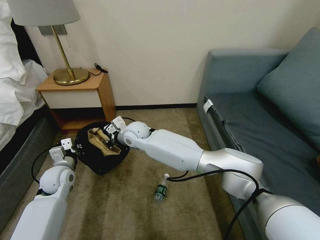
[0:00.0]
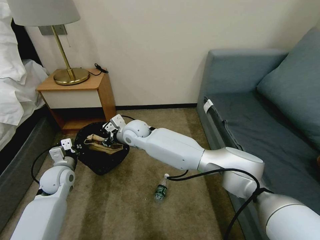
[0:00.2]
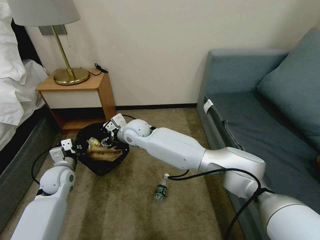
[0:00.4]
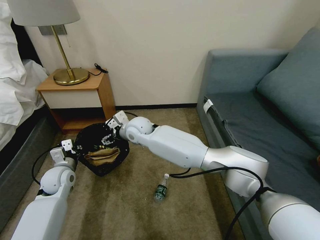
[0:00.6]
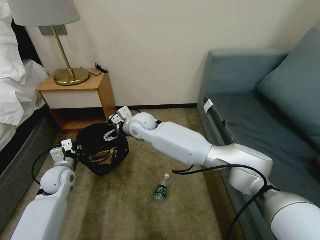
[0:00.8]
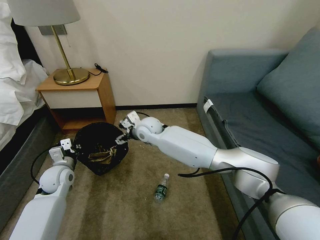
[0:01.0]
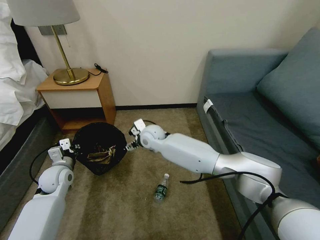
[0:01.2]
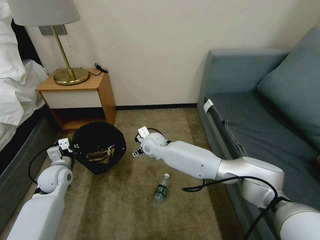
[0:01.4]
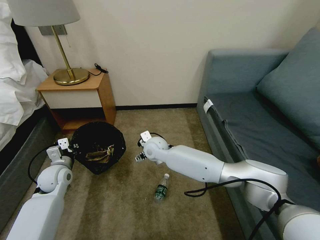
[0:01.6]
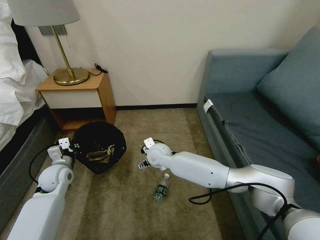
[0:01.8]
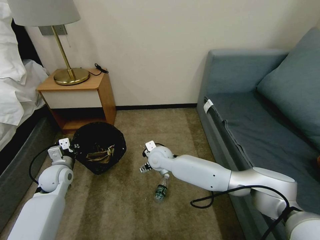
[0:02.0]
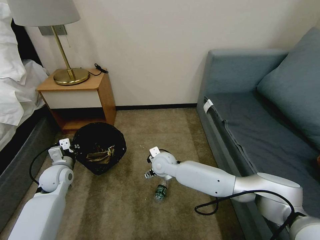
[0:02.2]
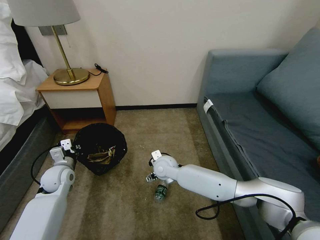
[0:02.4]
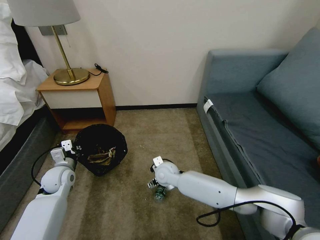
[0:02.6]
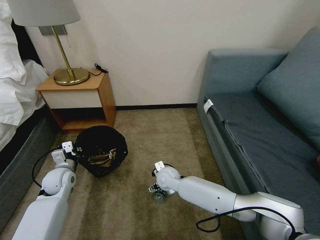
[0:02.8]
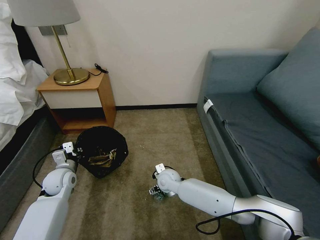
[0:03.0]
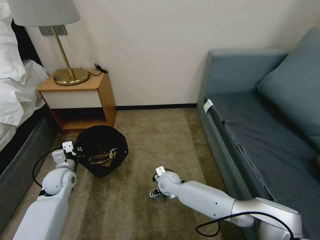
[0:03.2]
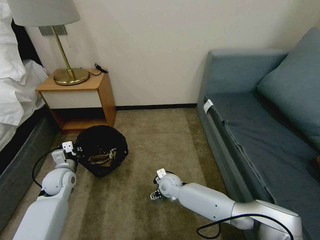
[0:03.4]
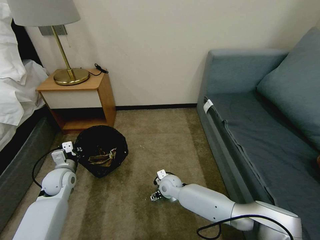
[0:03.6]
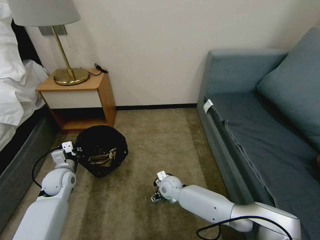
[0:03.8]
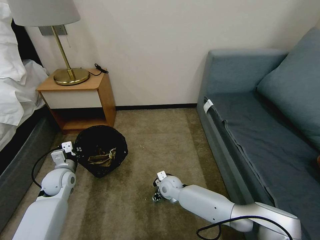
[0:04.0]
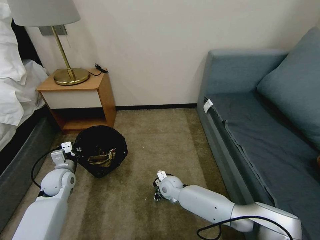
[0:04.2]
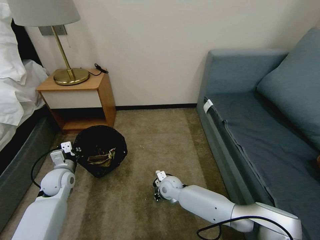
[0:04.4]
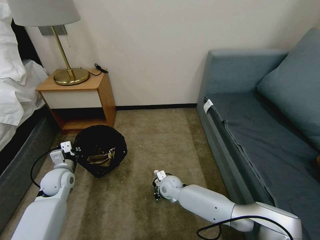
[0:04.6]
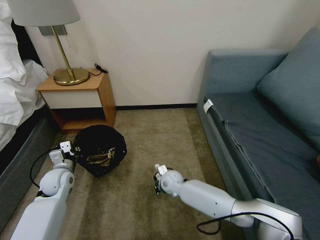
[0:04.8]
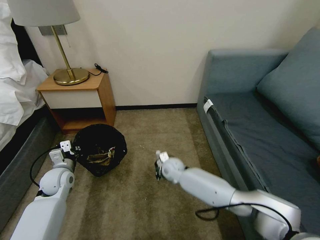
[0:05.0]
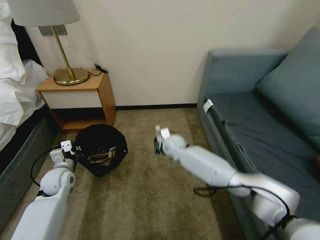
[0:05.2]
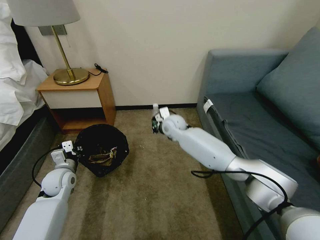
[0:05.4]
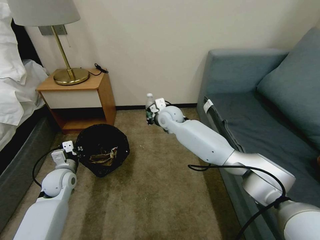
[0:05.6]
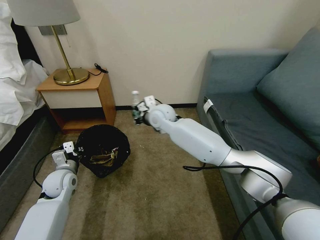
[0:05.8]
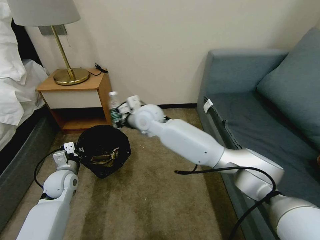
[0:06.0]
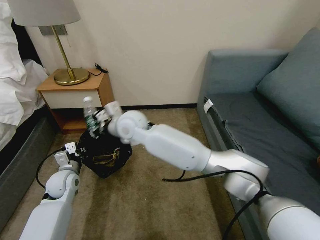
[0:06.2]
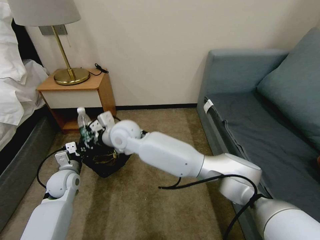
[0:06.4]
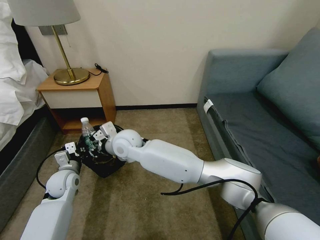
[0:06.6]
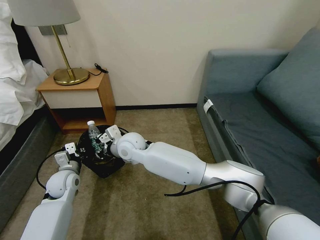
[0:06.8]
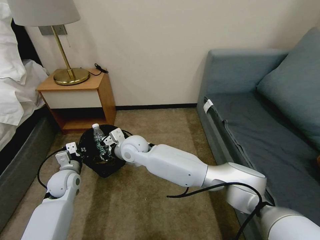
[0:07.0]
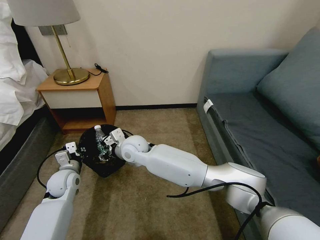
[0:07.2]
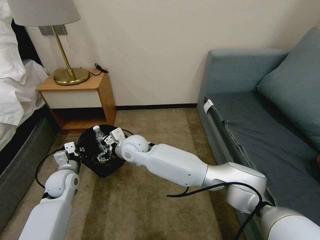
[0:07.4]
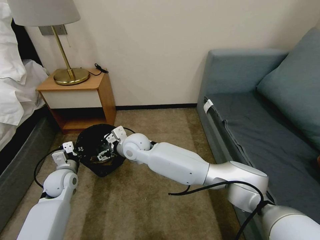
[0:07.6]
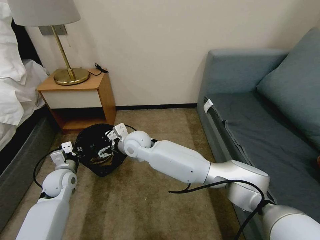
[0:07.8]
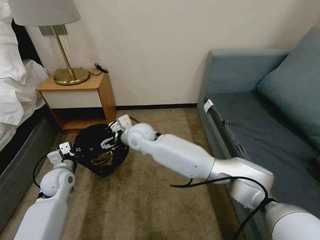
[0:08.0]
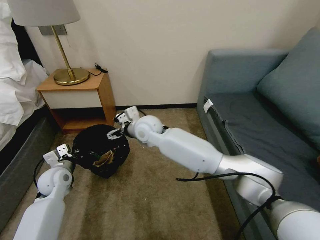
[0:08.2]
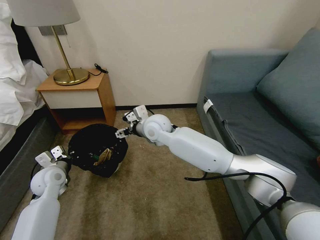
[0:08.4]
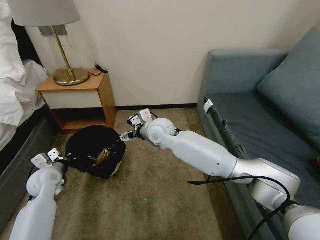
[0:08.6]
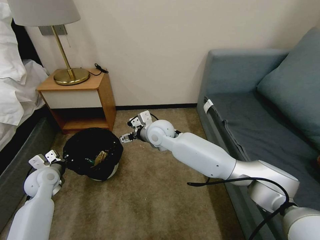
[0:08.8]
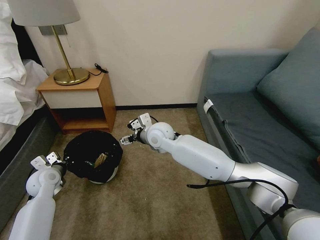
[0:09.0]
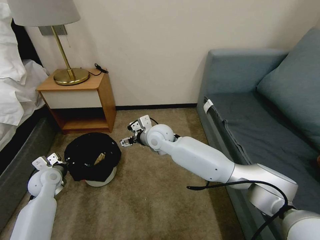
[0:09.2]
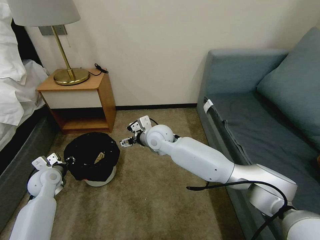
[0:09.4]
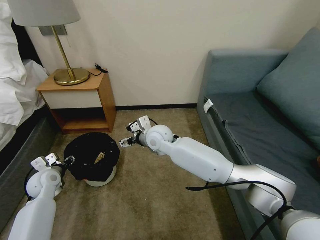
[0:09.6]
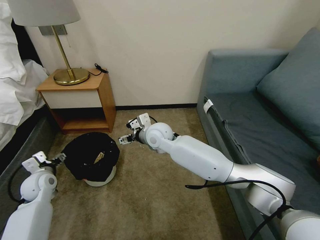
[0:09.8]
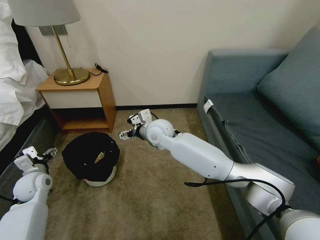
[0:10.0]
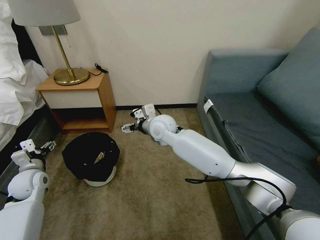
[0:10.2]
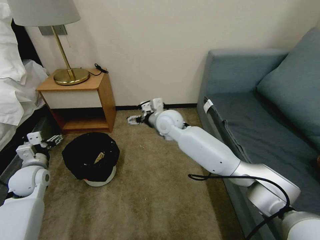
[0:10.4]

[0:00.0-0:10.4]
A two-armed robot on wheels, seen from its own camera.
Task of the whole recording: Pick up the trash bin, then pick up the garbage on the floor and place it into the trash bin.
0:00.0 to 0:01.4: The right gripper goes approximately 5 cm to the right, and opens its fingers.
0:01.4 to 0:03.0: The right gripper shifts some 15 cm downward, backward and to the right.
0:03.0 to 0:04.4: The right gripper closes up.
0:04.4 to 0:06.0: The right gripper moves upward, some 30 cm.
0:06.0 to 0:07.4: The right gripper is displaced downward by about 10 cm, and opens up.
0:07.4 to 0:09.0: The right gripper travels to the right by some 10 cm. The left gripper is displaced to the left by about 5 cm.
0:09.0 to 0:10.4: The right gripper moves approximately 5 cm; the left gripper moves approximately 5 cm, and opens its fingers.

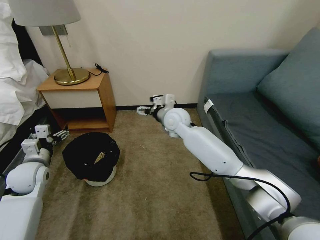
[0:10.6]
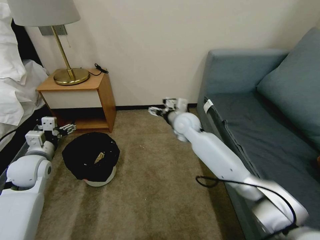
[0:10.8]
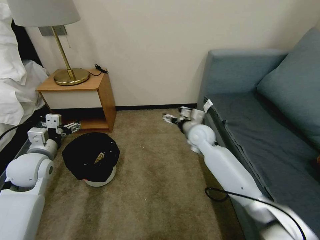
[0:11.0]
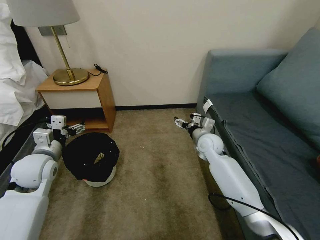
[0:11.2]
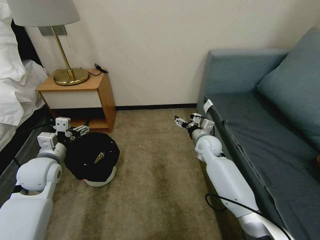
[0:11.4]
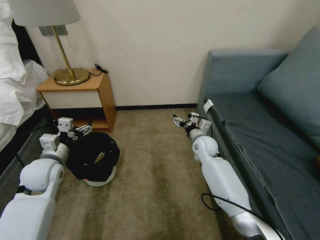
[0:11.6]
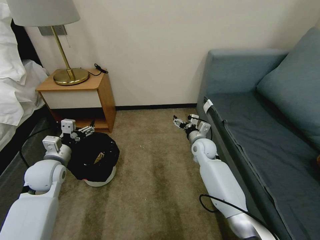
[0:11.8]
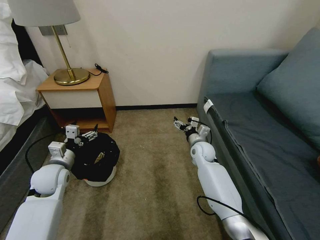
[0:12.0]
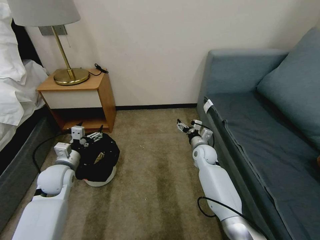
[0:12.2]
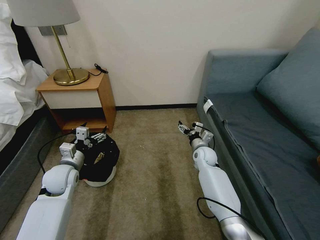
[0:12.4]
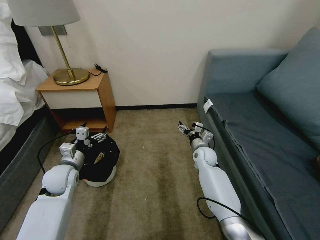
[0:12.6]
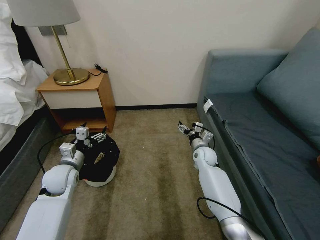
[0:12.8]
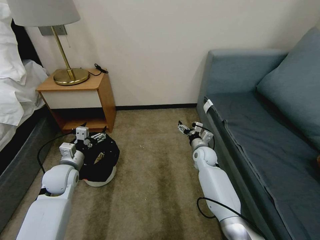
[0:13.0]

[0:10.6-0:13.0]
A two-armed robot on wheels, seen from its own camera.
Task of the whole recording: Pick up the trash bin, then pick up the garbage on the floor and place it into the trash bin.
0:10.6 to 0:11.8: The right gripper is displaced downward and to the right by approximately 20 cm, while the left gripper moves to the right, about 5 cm.
0:11.8 to 0:13.0: The right gripper changes place by approximately 5 cm.

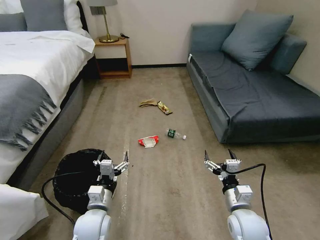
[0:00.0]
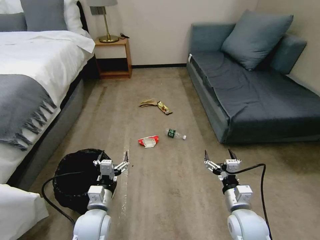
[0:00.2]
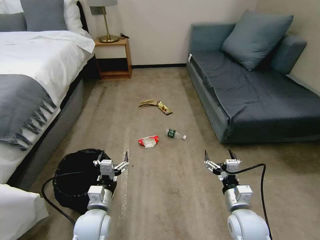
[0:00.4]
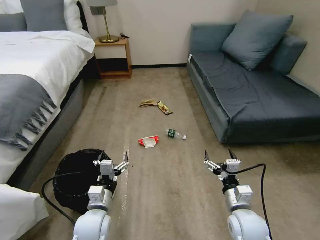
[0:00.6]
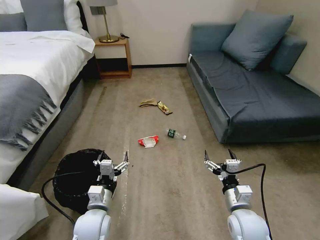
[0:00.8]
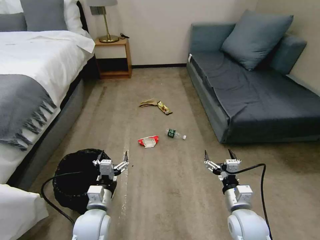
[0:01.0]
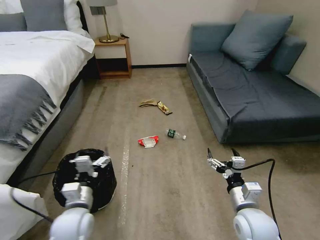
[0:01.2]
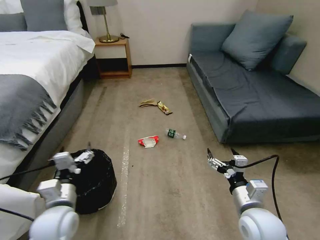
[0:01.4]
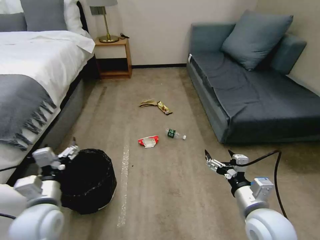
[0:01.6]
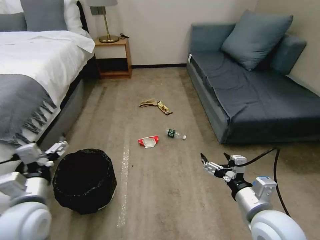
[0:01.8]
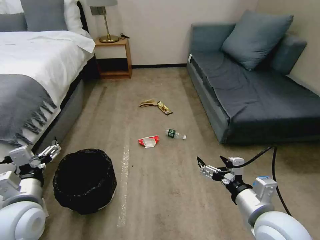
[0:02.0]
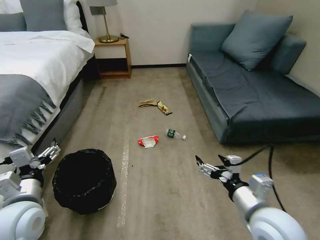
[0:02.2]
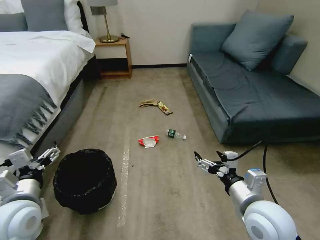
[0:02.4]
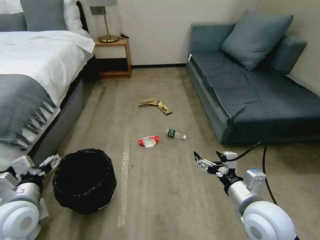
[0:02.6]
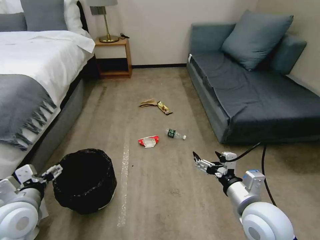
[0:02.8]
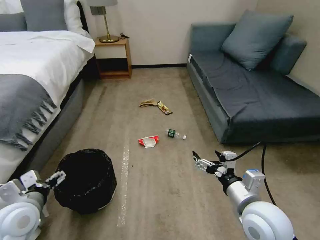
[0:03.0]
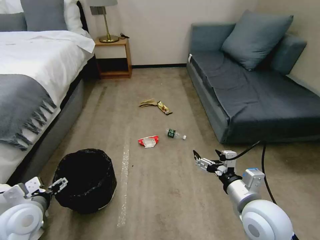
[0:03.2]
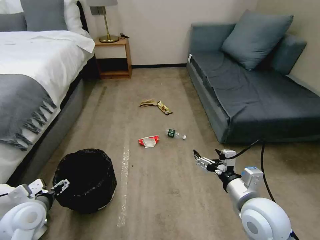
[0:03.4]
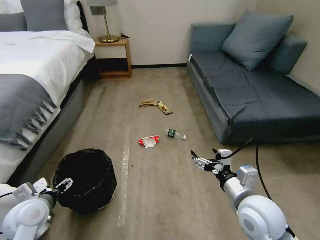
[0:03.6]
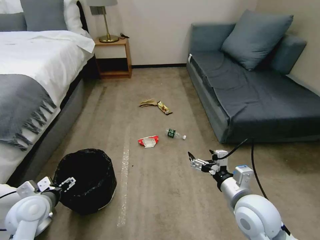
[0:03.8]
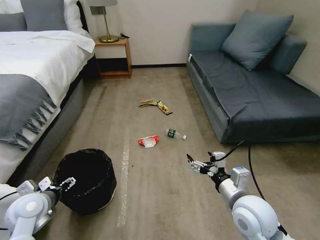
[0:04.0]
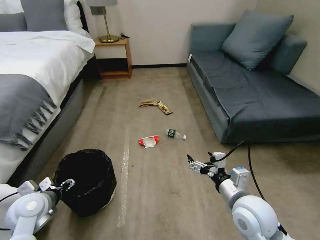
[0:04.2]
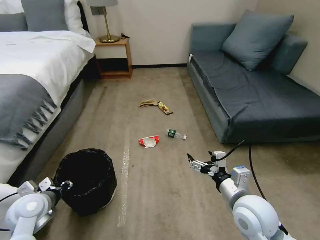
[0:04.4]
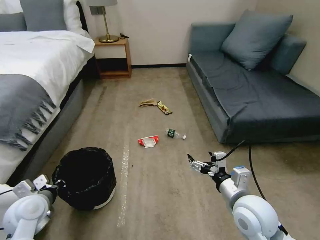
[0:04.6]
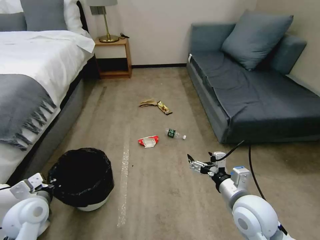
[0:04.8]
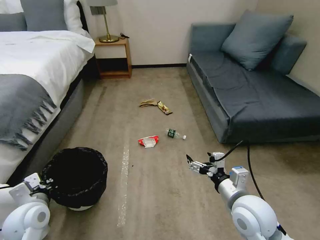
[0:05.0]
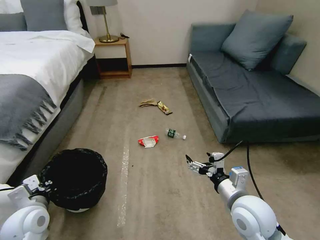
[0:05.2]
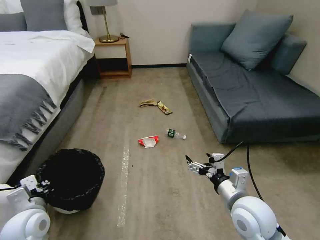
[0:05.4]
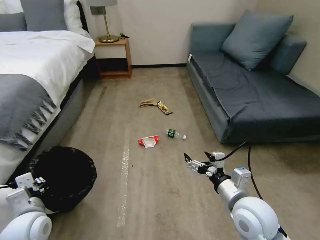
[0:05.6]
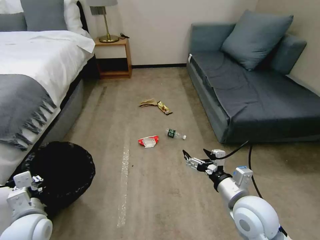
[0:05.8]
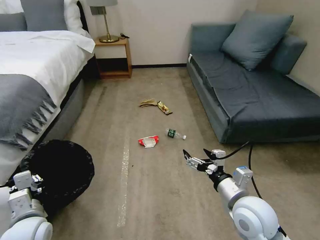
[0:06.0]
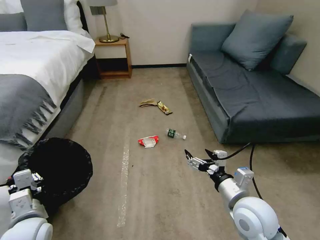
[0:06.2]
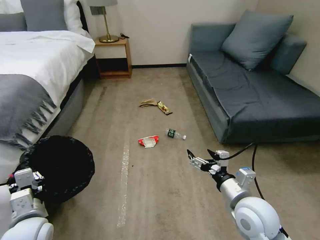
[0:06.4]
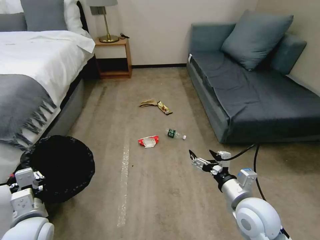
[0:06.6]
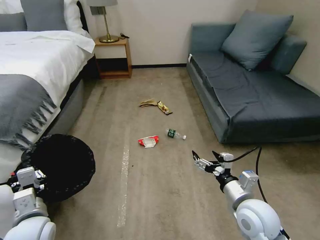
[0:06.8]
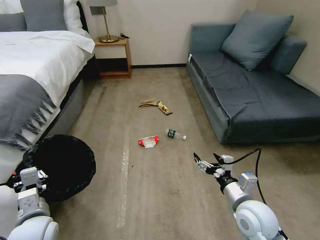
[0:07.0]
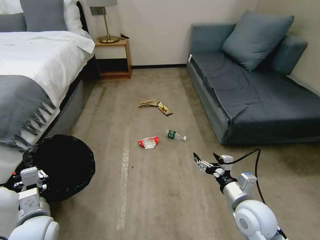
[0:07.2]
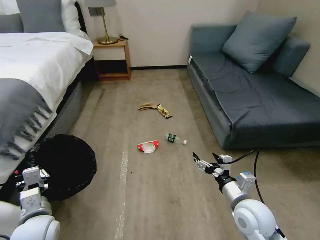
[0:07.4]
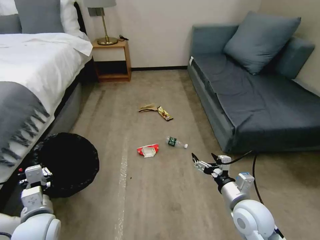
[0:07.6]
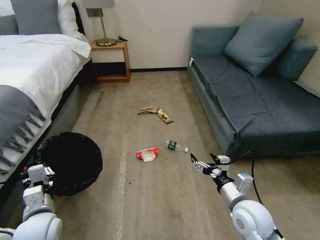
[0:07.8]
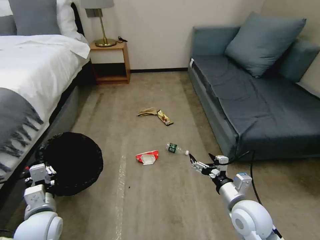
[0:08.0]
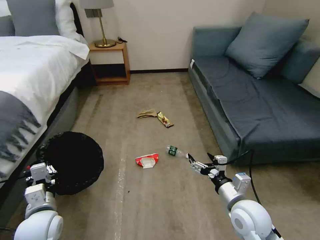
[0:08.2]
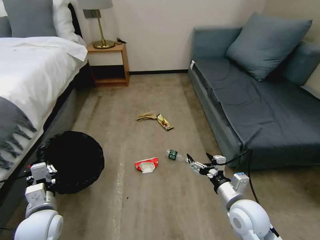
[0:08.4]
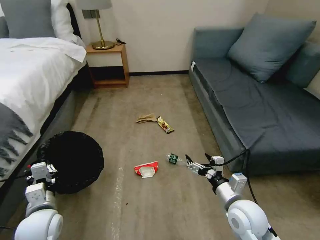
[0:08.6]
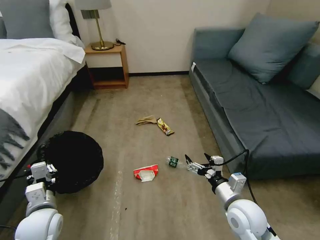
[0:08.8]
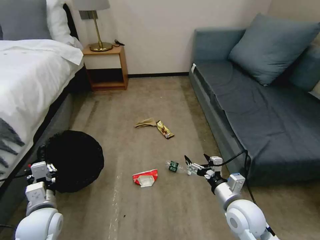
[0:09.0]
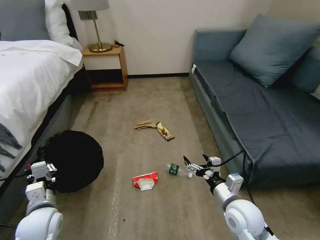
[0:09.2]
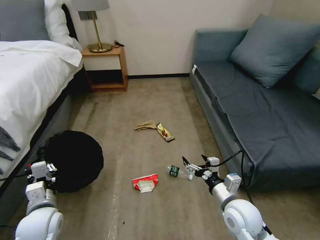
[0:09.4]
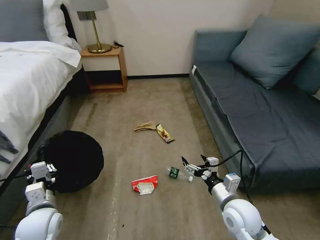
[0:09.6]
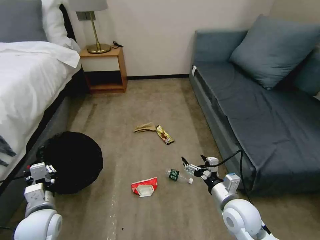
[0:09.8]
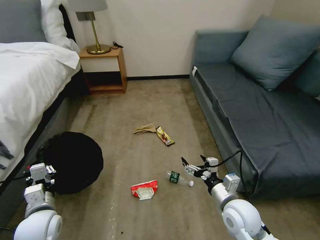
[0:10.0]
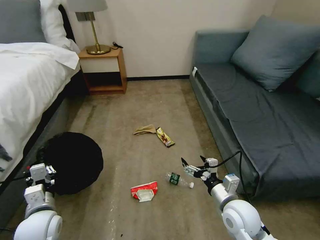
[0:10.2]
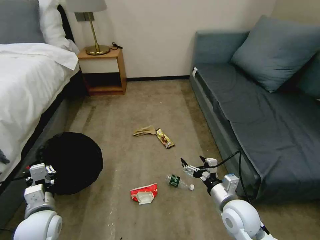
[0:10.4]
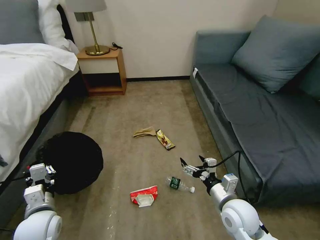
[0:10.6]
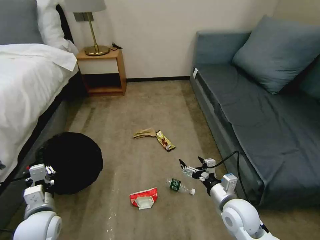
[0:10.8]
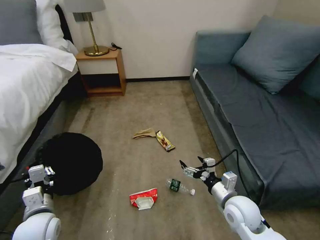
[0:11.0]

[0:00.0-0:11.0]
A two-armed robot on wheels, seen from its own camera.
Task of the whole recording: Pick up the trash bin, then pick up the garbage on the floor and place it into the trash bin.
0:01.6 to 0:03.2: The left gripper heads to the left, covering about 5 cm.
0:03.2 to 0:04.8: The left gripper closes its fingers.
0:04.8 to 0:06.2: The left gripper shifts some 5 cm backward.
0:06.2 to 0:07.8: The right gripper shifts by approximately 5 cm.
